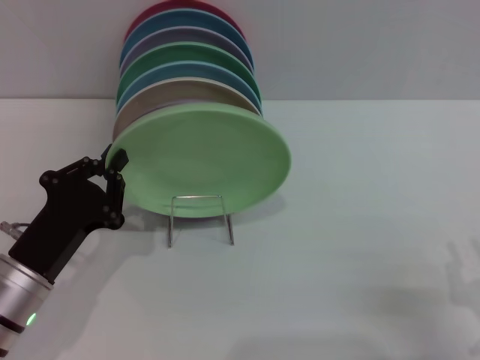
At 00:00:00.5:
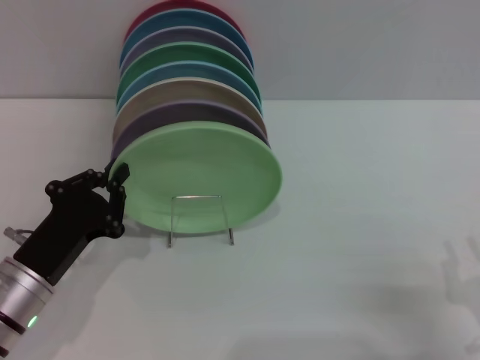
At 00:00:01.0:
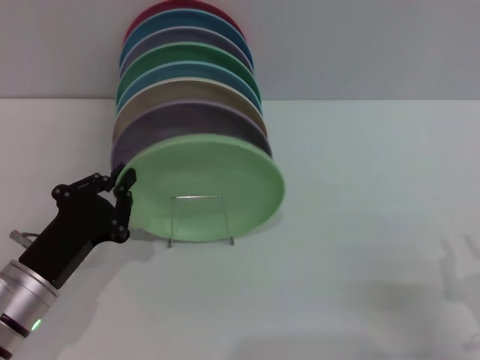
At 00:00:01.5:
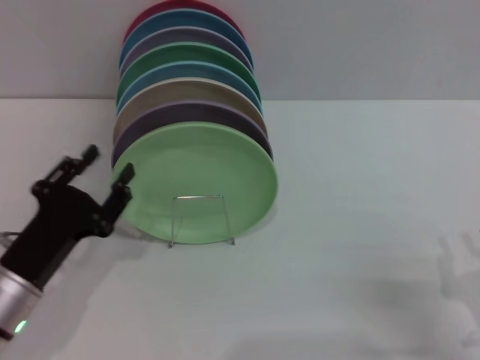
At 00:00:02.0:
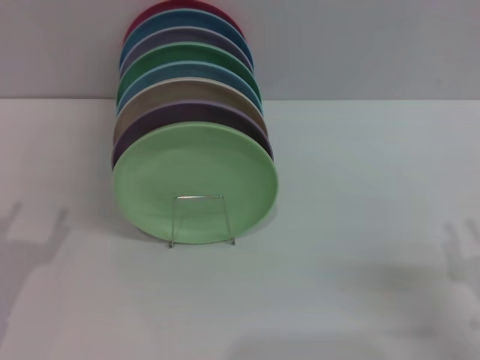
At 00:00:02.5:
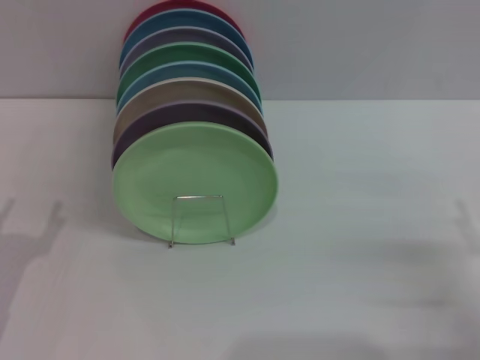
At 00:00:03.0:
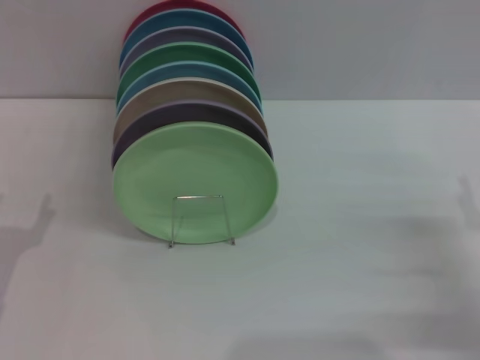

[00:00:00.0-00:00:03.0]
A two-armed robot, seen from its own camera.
Task of the whole recording: Grip the plate with one hand, pass it to the other, then set it on the shelf.
00:00:00.0 to 00:00:01.5: The left gripper opens.
00:00:01.5 to 00:00:03.0: The left gripper heads to the left, covering some 5 cm, and opens; the right gripper is displaced forward by approximately 10 cm, and opens its fingers.
